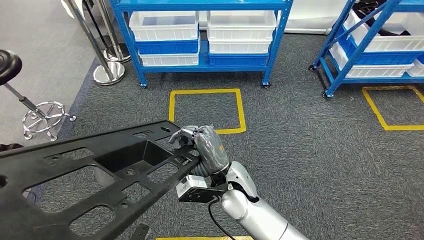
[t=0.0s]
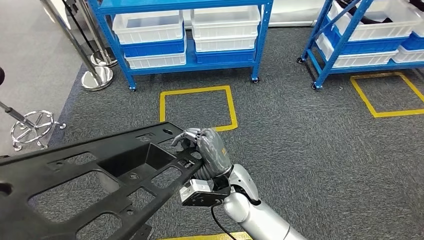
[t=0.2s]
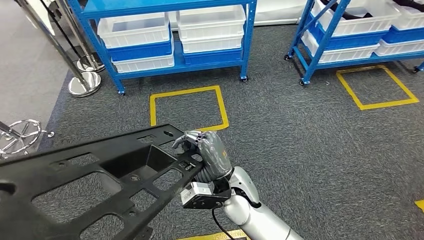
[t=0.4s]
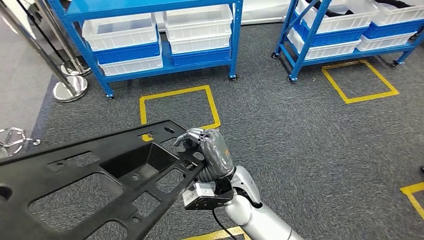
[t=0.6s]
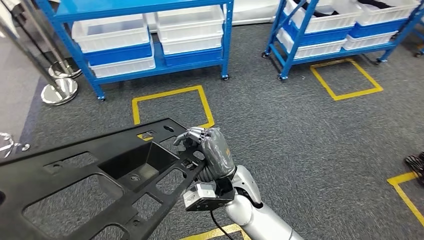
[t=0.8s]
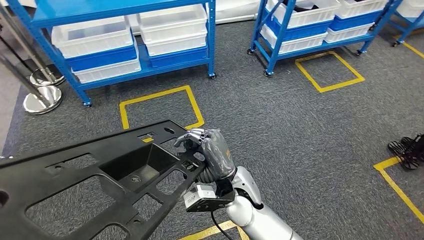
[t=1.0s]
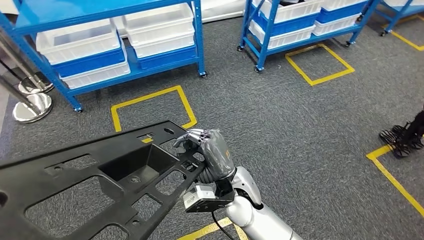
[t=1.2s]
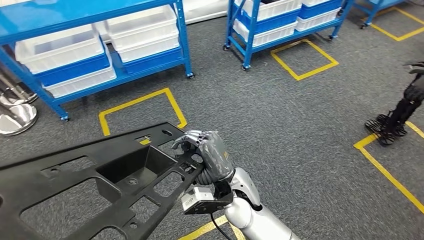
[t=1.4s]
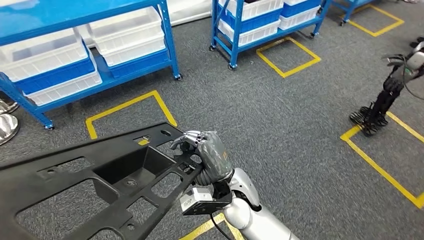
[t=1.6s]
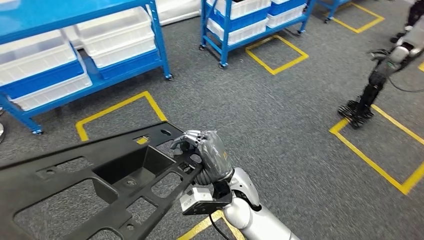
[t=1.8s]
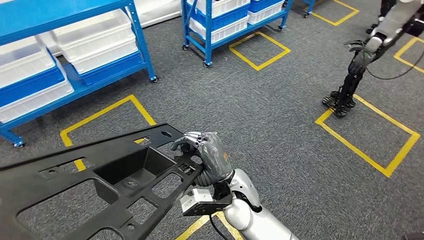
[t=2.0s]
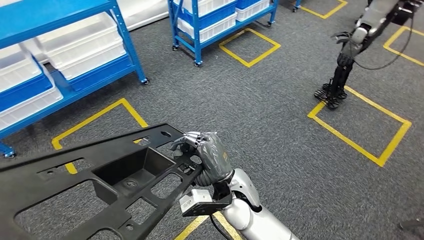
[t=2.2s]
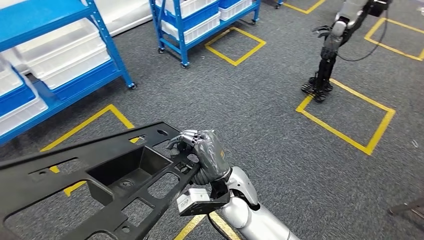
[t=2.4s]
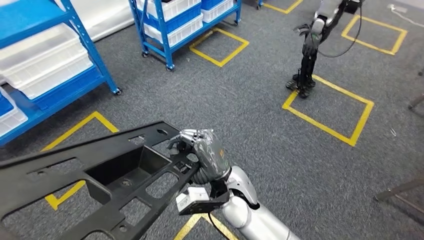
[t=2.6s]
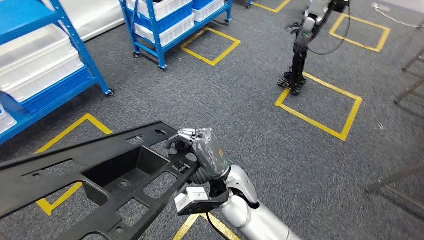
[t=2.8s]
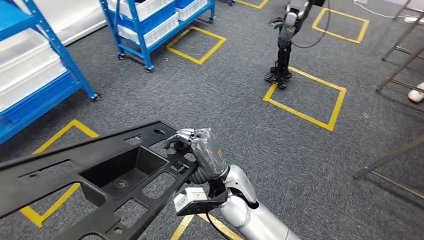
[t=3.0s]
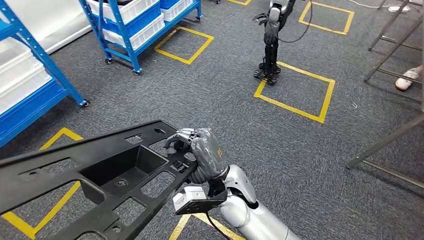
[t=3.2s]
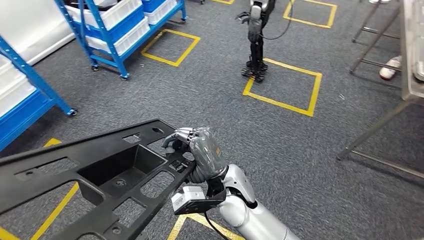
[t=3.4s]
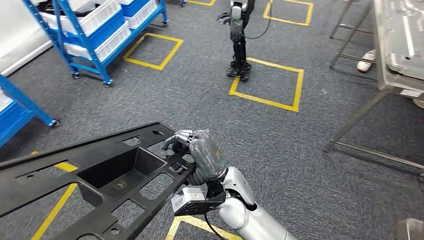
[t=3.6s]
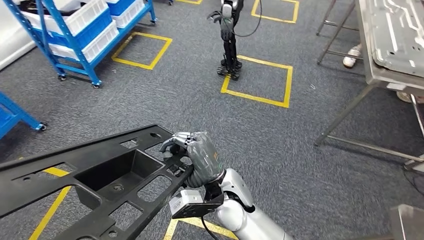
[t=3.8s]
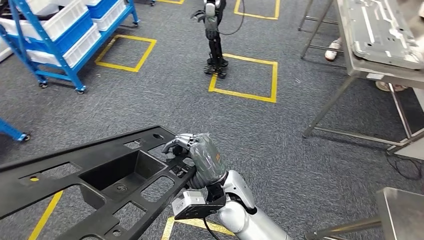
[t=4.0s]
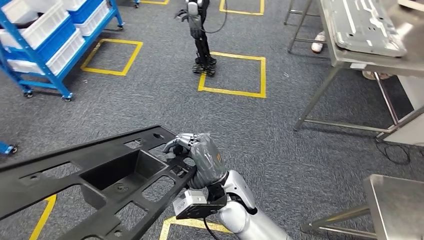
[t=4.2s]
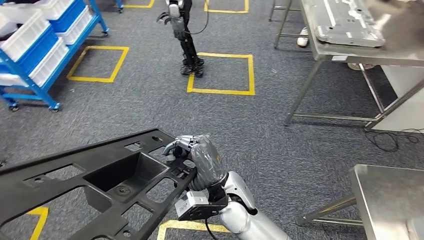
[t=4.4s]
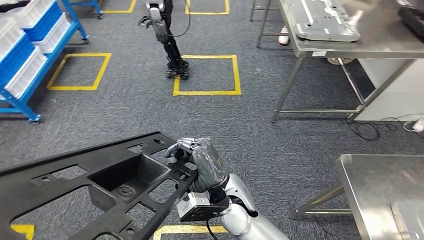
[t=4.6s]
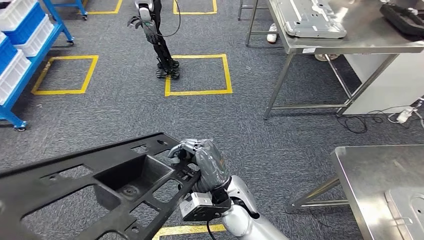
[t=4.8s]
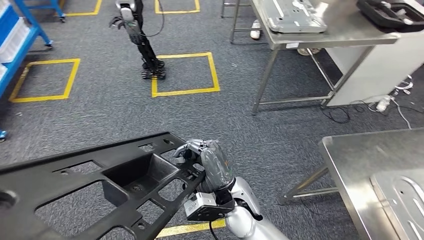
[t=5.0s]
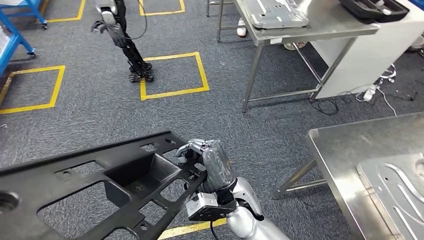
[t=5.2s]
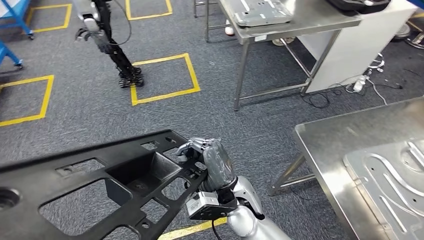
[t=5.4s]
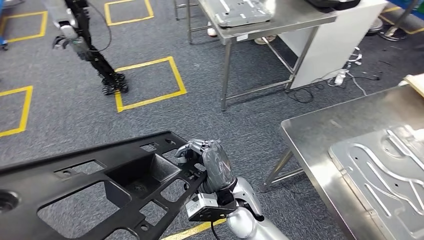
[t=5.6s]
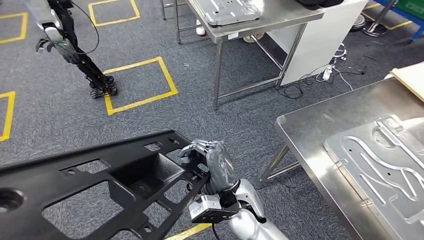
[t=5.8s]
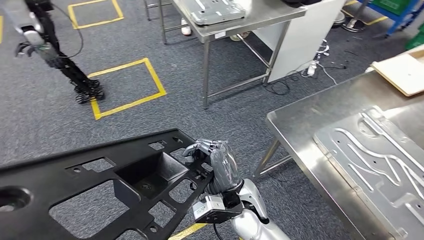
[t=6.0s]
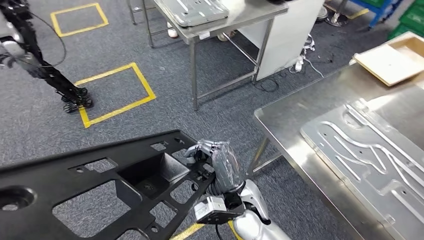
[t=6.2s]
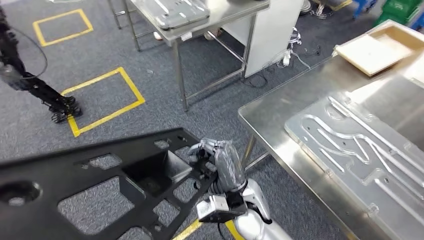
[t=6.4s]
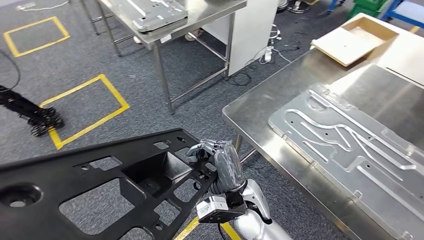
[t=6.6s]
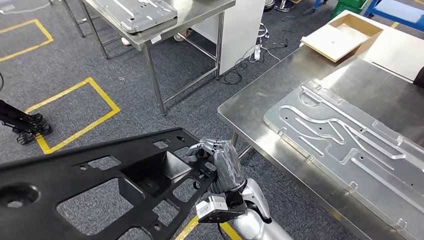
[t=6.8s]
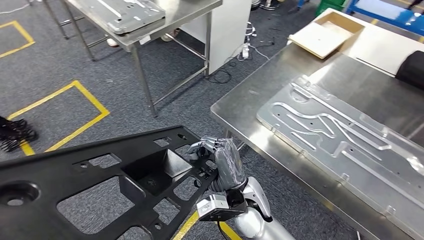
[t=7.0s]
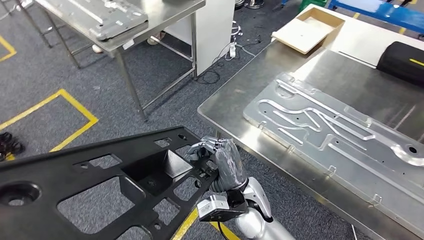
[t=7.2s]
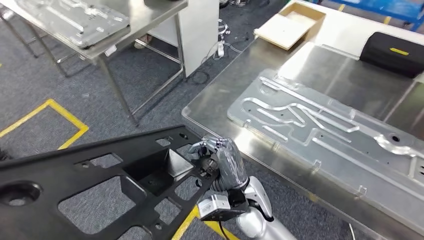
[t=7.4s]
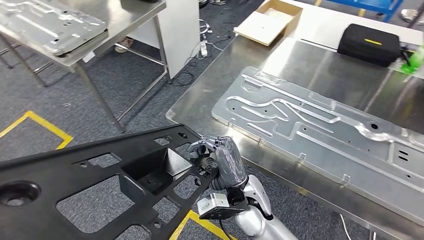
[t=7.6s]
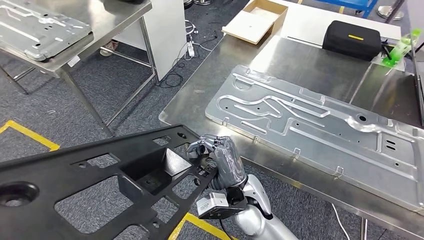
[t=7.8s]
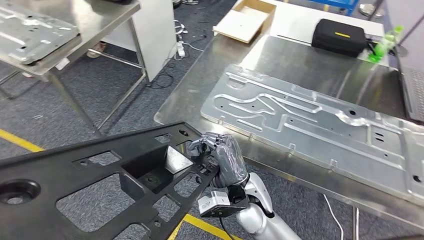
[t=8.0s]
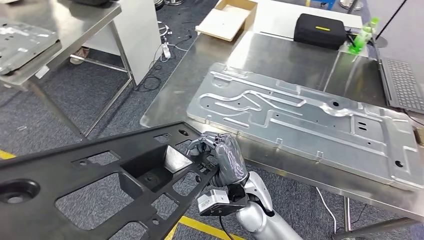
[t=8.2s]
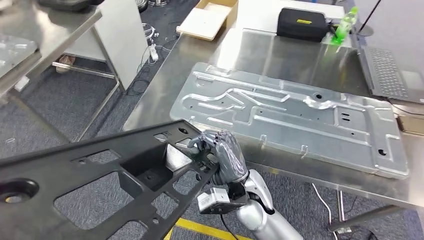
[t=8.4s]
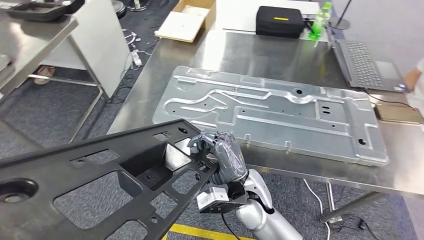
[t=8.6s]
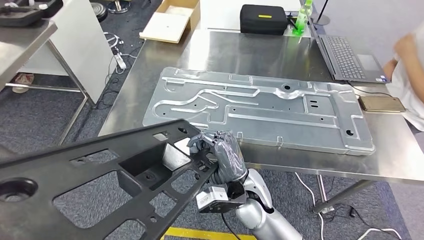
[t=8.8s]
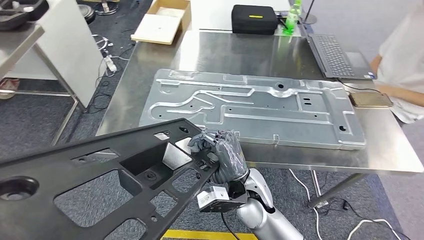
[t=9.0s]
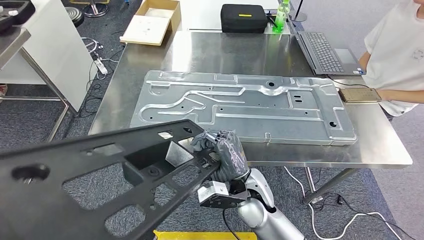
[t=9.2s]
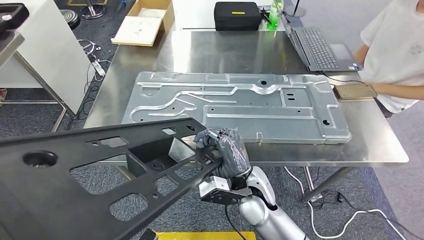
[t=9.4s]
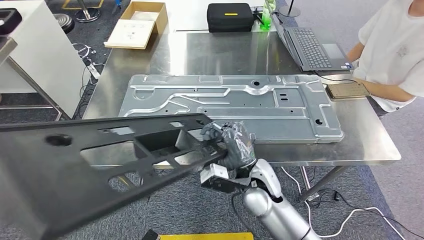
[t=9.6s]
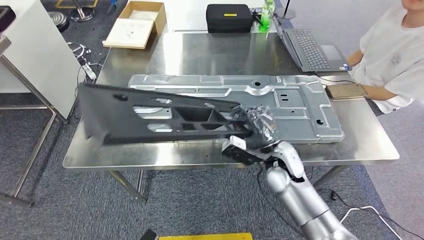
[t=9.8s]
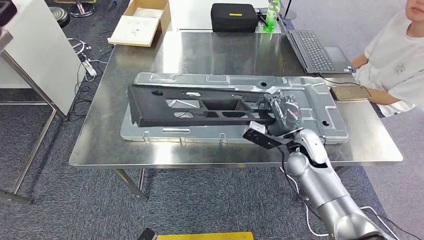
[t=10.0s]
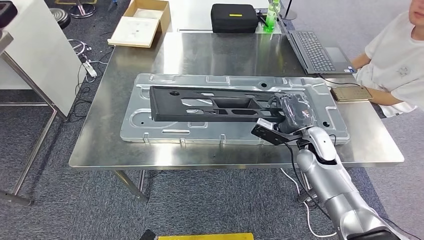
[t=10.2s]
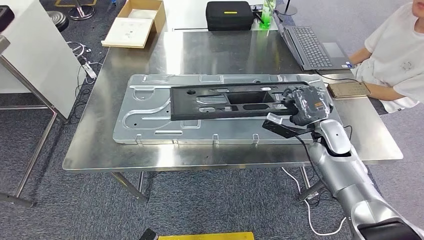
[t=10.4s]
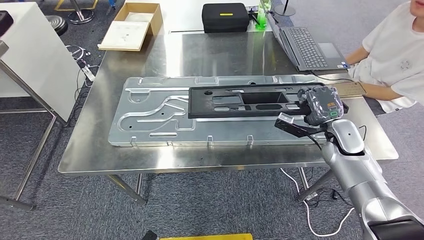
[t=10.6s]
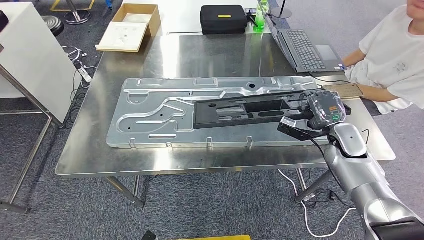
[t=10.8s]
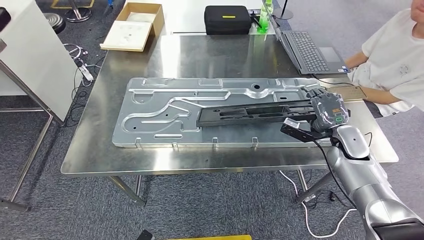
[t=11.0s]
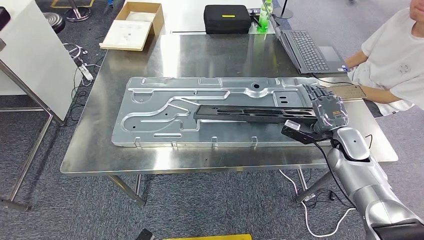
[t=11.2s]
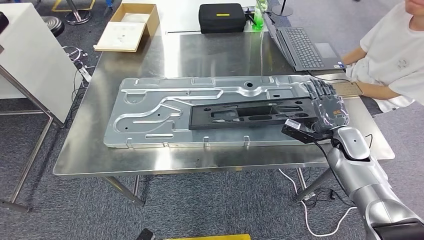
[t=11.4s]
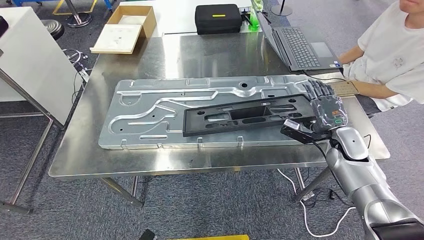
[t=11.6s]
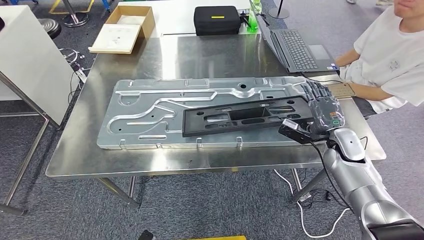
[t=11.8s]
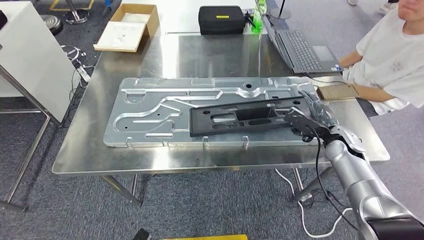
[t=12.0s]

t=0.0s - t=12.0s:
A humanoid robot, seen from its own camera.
Step, t=0.0s - t=6.8s: Move the large material to the workbench.

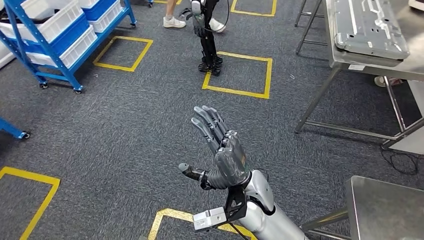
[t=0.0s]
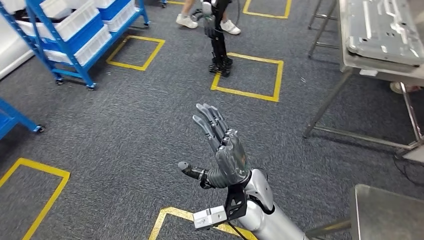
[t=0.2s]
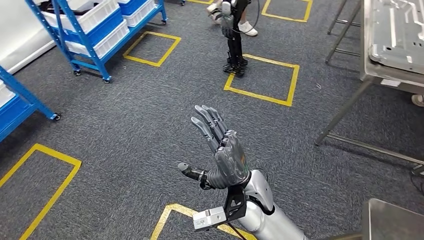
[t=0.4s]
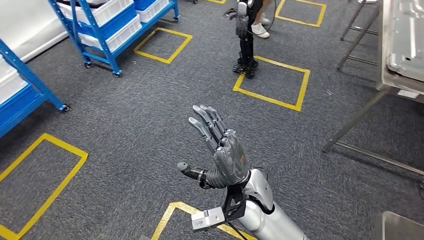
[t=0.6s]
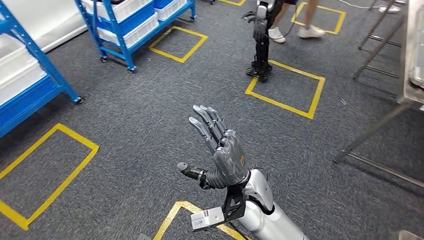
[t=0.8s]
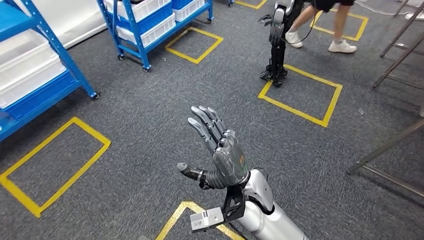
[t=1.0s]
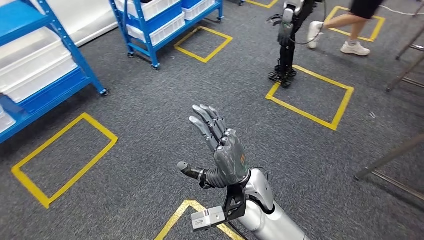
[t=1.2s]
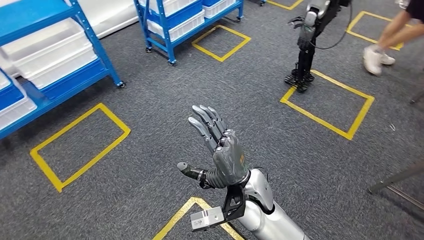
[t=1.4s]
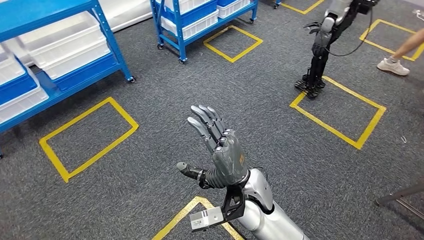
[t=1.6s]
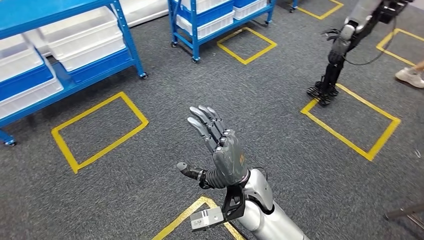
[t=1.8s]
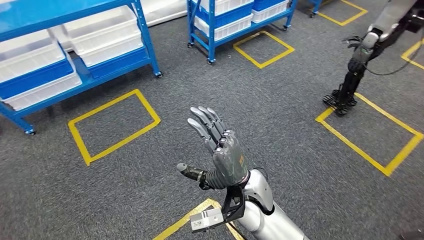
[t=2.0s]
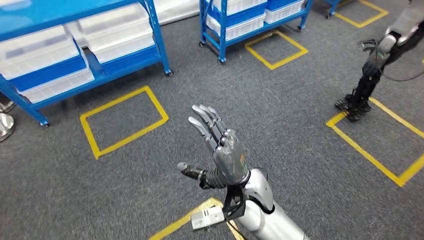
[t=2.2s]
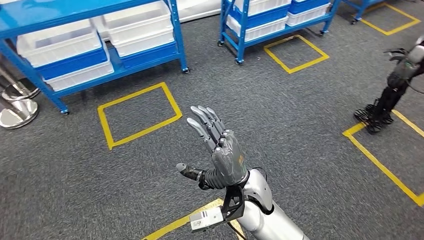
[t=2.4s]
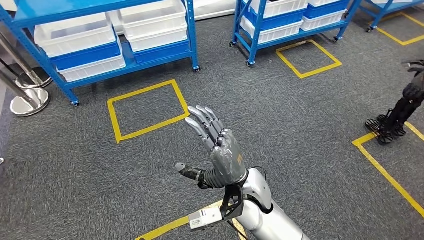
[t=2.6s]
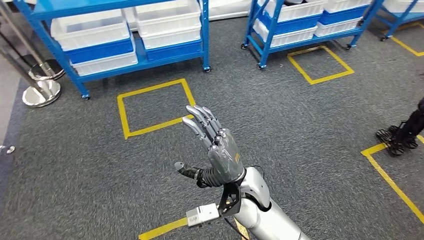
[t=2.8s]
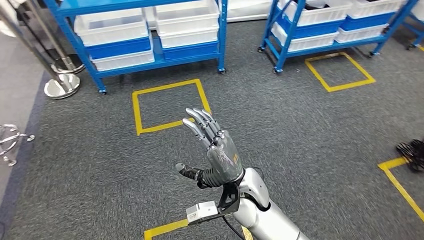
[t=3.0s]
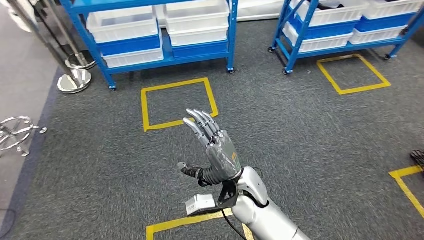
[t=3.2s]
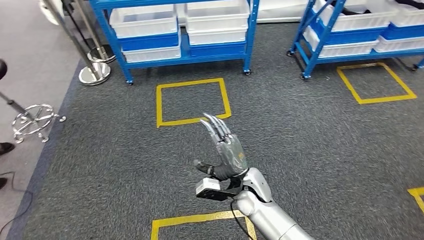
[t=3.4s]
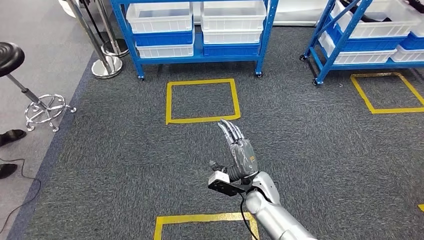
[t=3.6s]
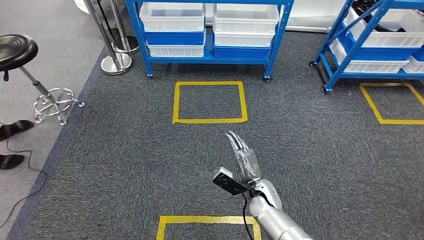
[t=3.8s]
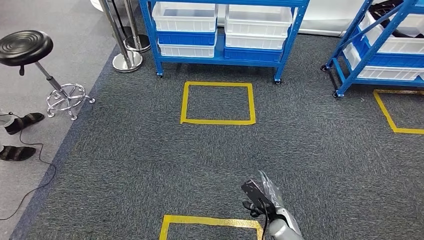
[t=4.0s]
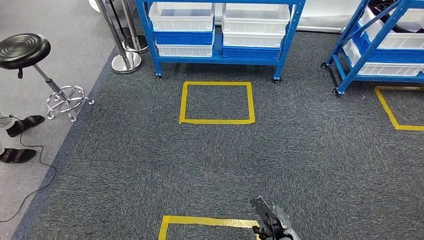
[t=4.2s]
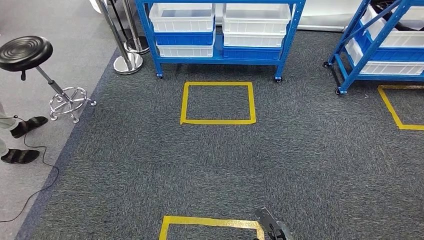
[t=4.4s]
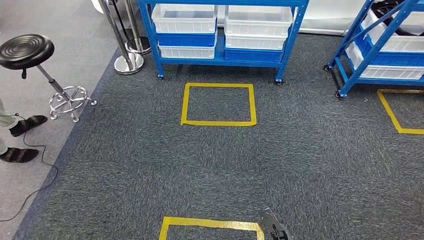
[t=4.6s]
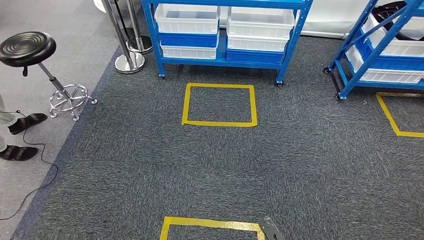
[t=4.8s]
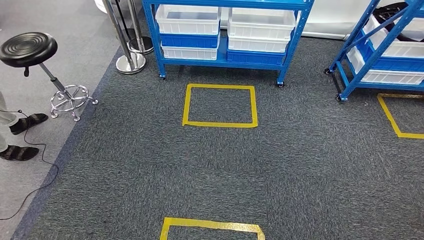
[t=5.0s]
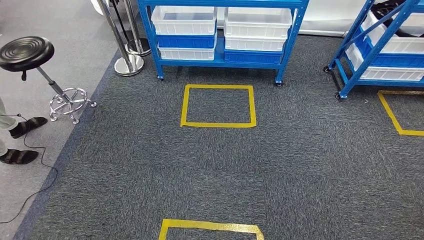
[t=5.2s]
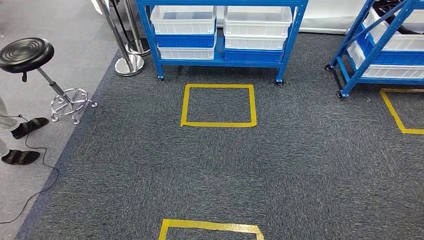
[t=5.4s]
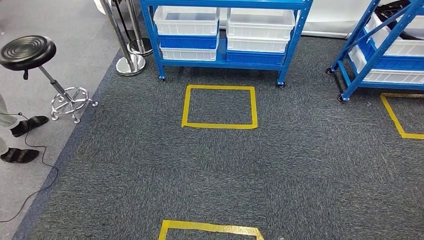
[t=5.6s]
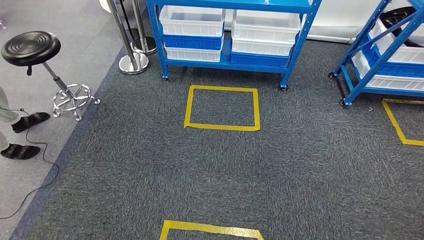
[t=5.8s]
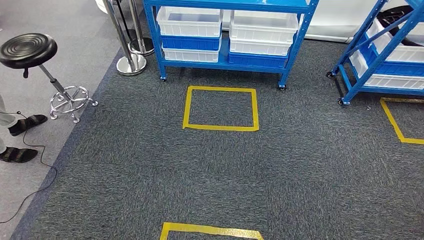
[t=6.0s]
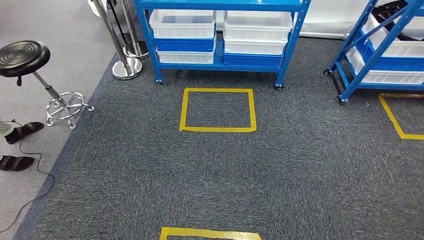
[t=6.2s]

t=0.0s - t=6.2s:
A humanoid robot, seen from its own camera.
Step, t=0.0s - t=6.2s: Return to the initial position at the shelf.
